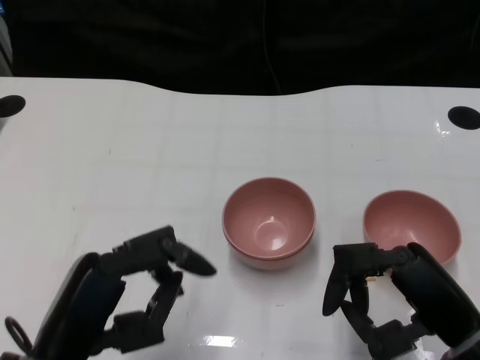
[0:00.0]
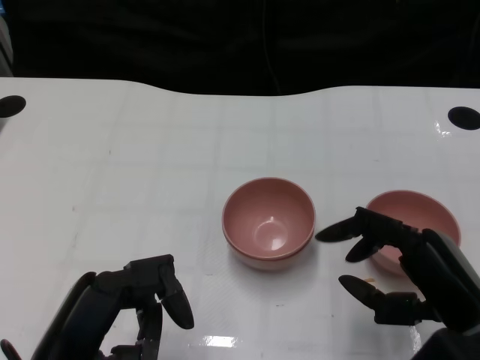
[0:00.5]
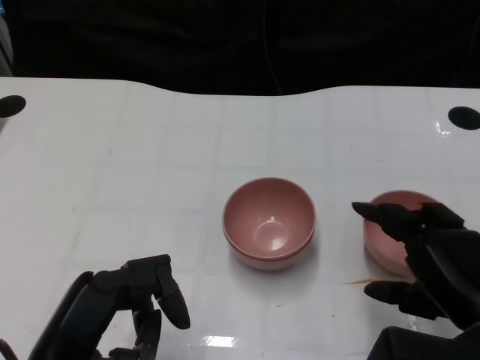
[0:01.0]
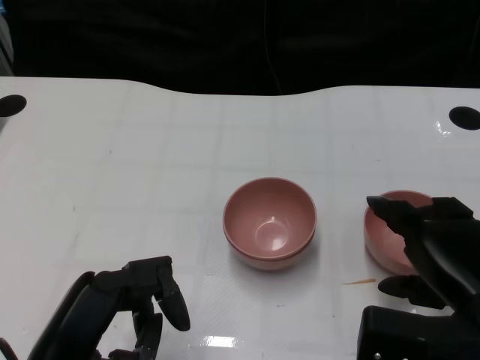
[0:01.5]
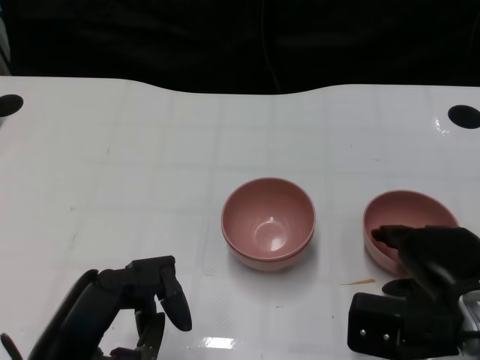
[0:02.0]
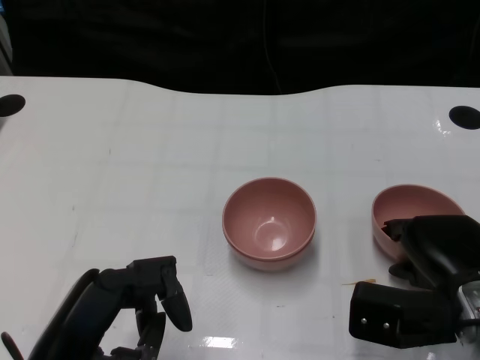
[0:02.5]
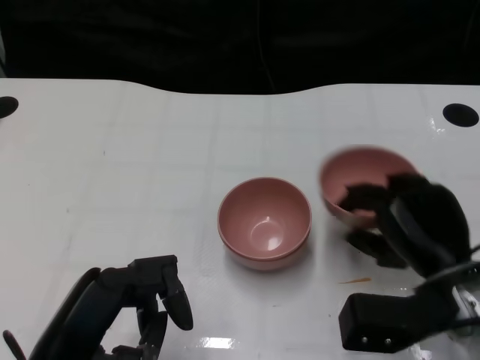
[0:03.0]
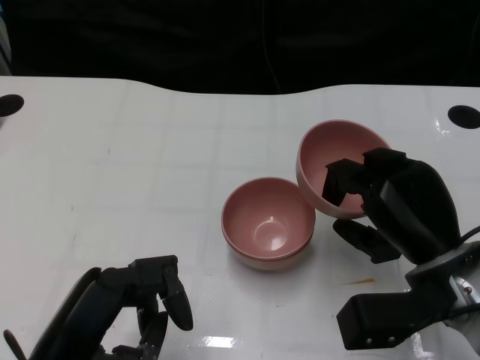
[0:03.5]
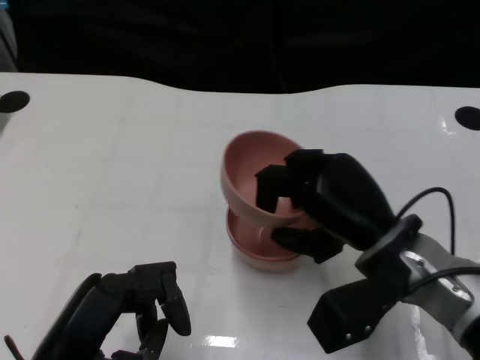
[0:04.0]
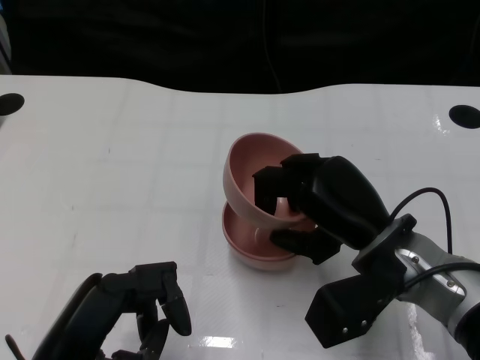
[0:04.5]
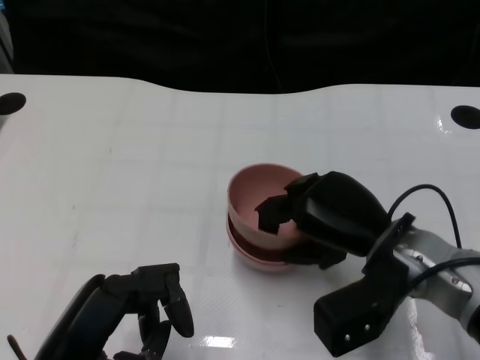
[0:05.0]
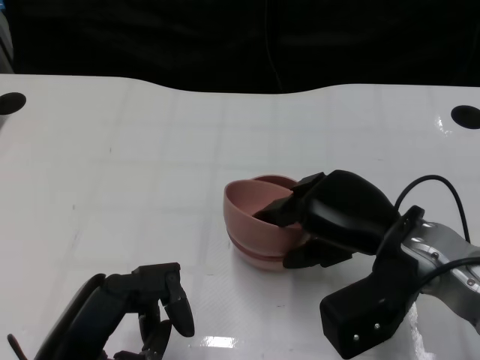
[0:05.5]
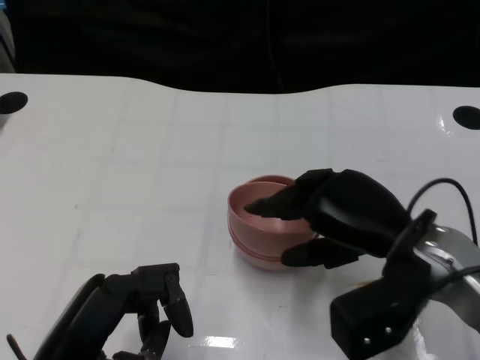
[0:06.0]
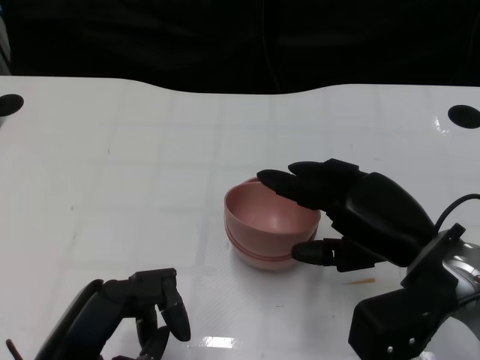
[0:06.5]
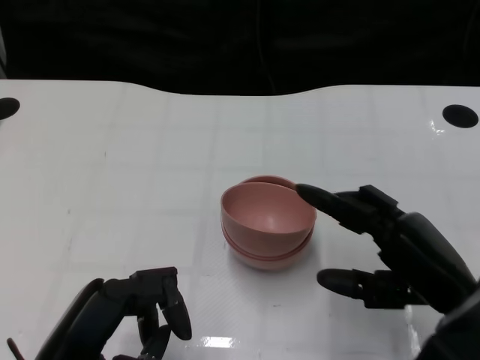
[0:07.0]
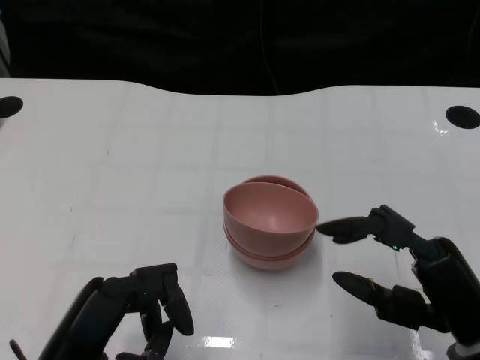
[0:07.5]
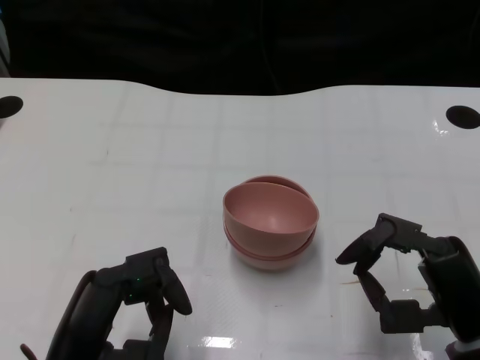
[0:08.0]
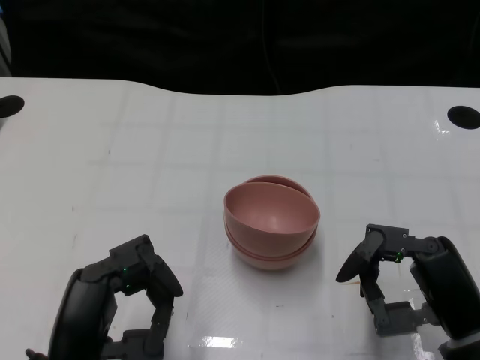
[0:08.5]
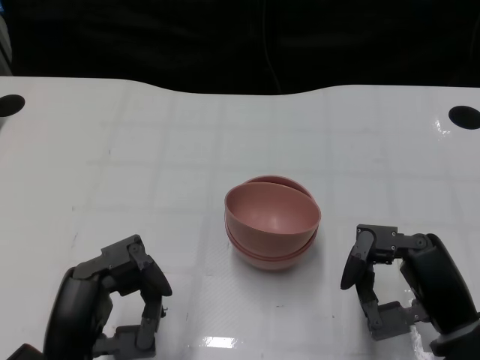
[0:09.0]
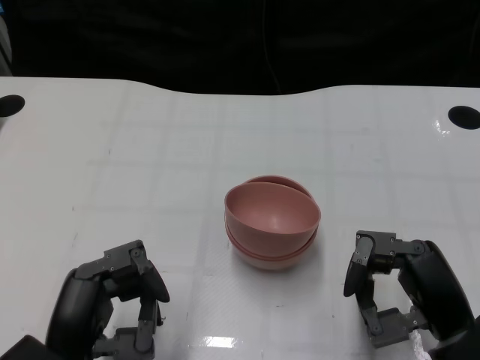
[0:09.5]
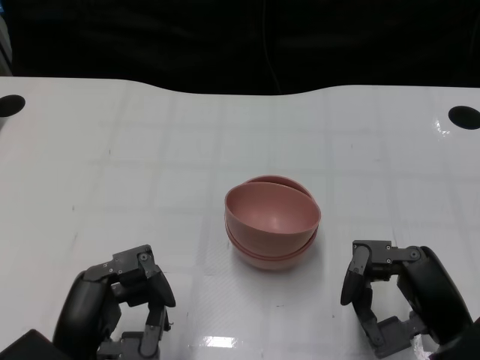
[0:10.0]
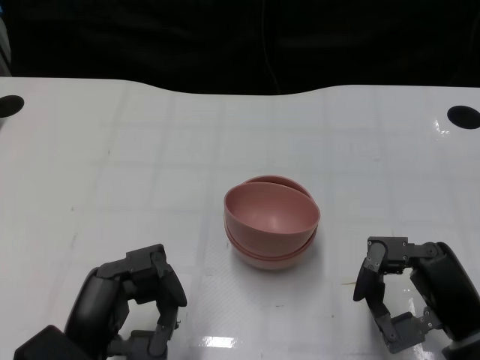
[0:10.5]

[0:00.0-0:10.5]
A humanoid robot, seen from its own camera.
Task of the whole recording: Pick up the bowl on one side of the table and place it on top of the middle bowl, then pick up the bowl on the other side of the table and place it on top of the middle bowls.
Step, 0:00.0 to 0:02.5: Grasp the bowl on the right with the right gripper.
Step, 0:03.0 to 0:06.0: Place the bowl on the right onto the bowl in the middle with right gripper.
0:02.0 to 0:04.0: The right hand moves to the left, some 5 cm.
0:06.5 to 0:08.5: The right hand heads backward and downward, covering about 10 cm.
0:08.5 to 0:10.5: The hands make only small movements.
